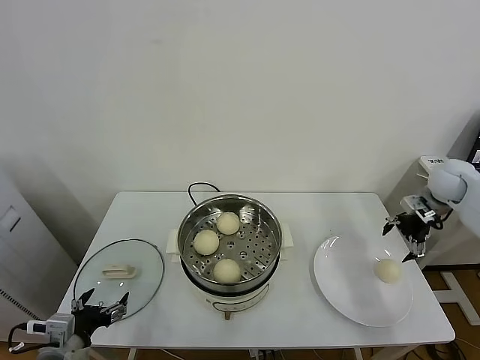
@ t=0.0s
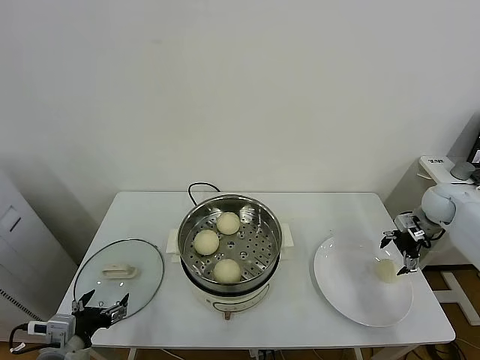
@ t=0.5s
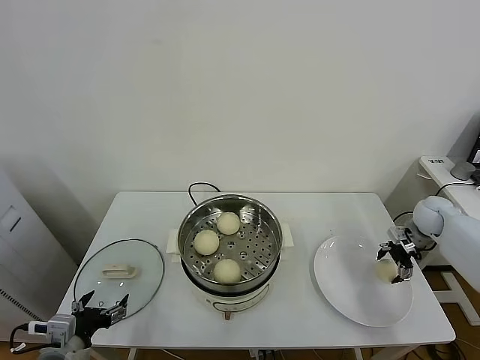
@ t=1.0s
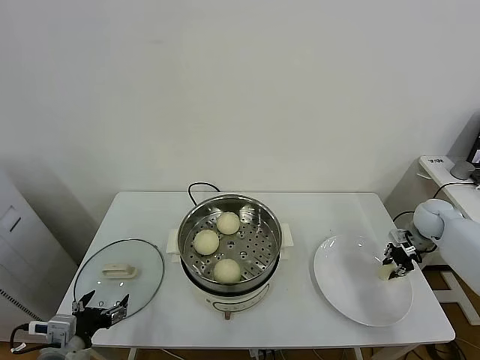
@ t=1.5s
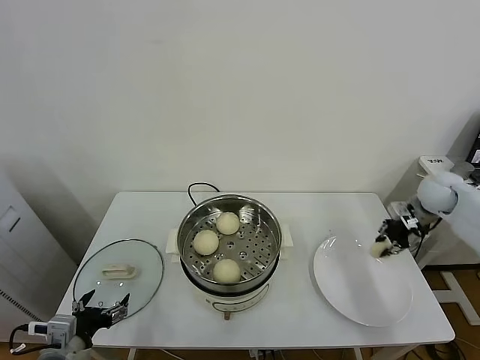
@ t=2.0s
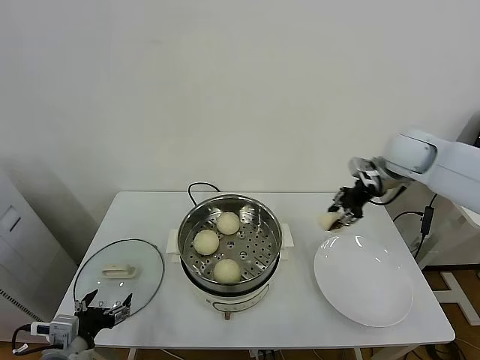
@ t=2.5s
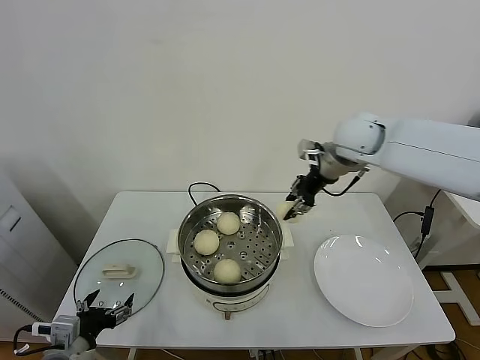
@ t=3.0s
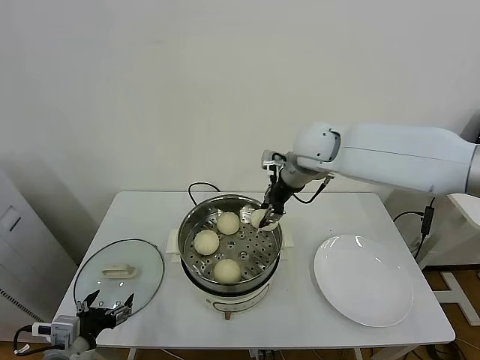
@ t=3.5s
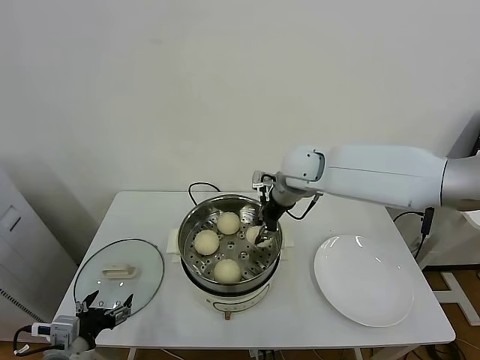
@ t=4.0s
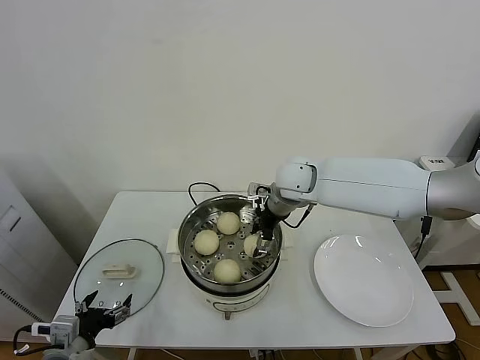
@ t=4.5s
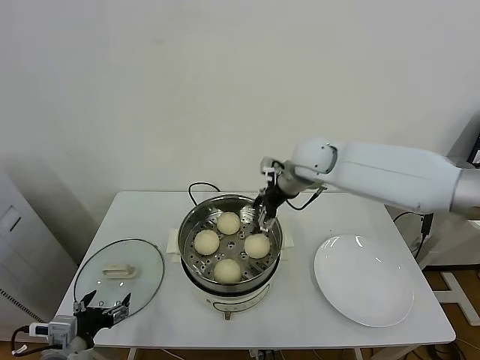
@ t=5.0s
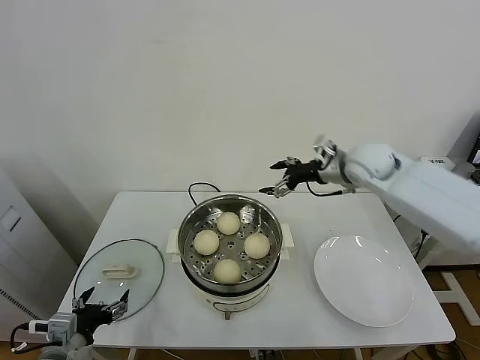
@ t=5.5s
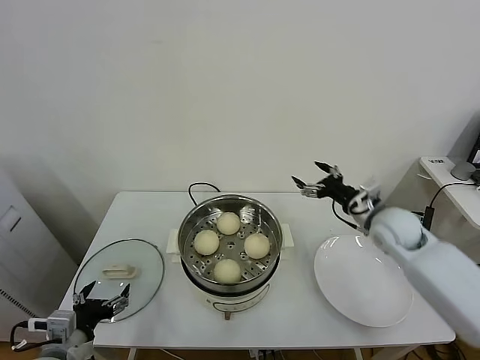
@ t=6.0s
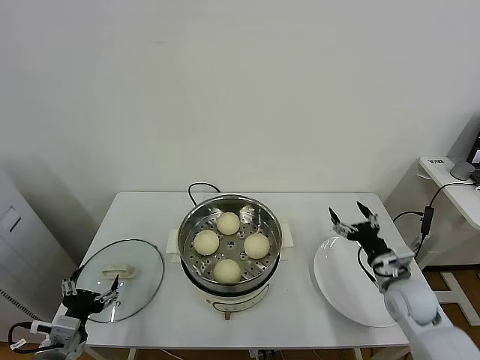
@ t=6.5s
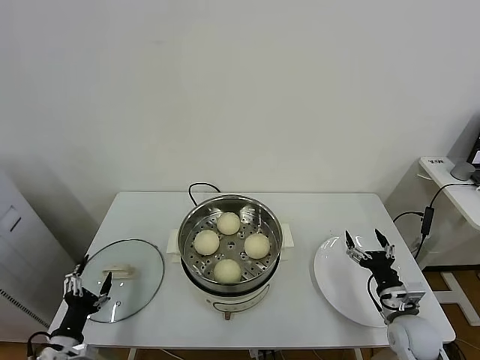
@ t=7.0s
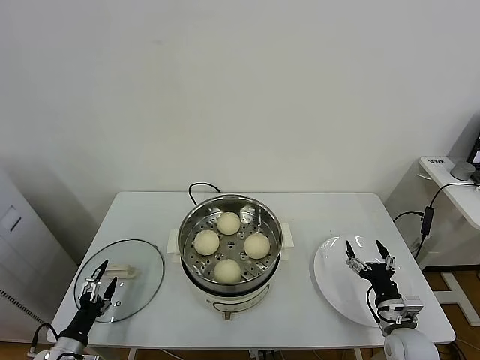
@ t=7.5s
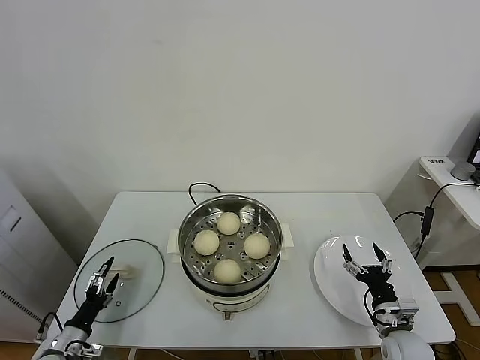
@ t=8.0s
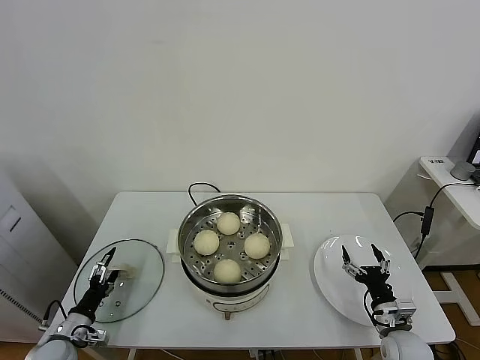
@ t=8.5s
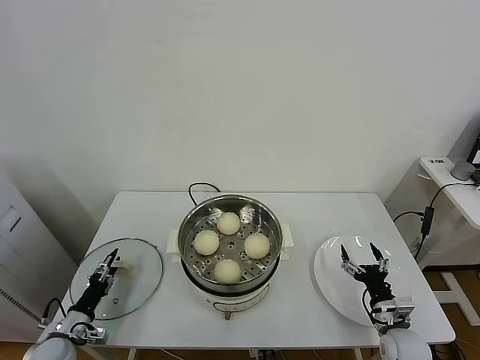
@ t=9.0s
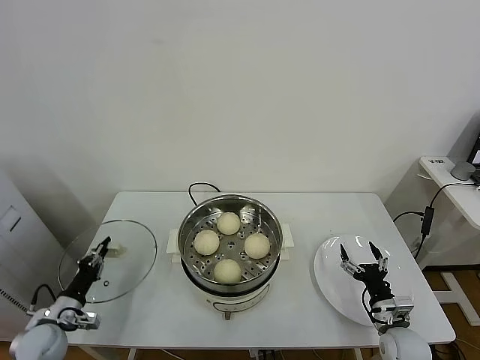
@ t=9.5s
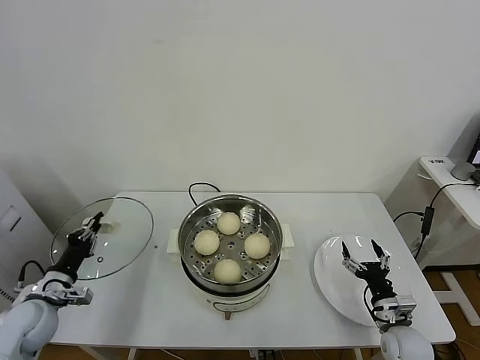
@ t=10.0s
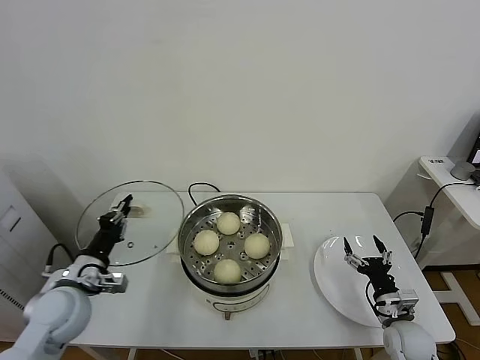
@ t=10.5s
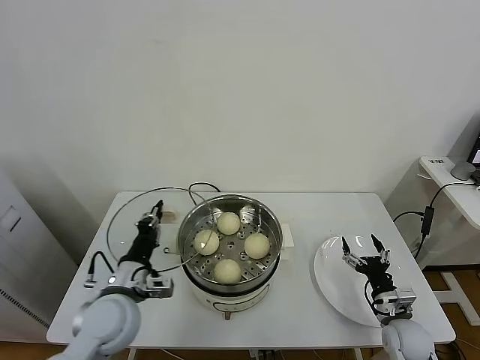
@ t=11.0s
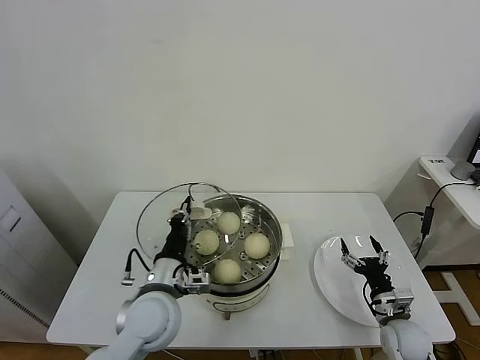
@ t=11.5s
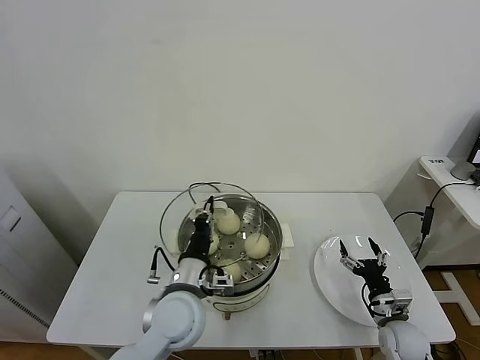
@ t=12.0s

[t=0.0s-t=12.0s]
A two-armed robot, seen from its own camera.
Task of the whole recording: take steamed baozi put them in steamer.
Step, t=1.5s to t=4.5s: Place the baozi on the steamer with right gripper.
Step, t=5.0s to t=9.5s: Grasp the pot lid with left gripper.
t=0.0s to t=2.0s: The right gripper reaches some 10 cm downward, then returns, and closes up.
t=2.0s to t=4.0s: The right gripper heads to the left, covering approximately 35 cm.
t=4.0s to t=6.0s: The right gripper goes about 25 cm to the right, downward and backward, and opens up.
t=6.0s to t=8.0s: The right gripper shifts about 30 cm downward and backward; the left gripper shifts approximately 20 cm downward and to the left.
t=8.0s to t=10.0s: The left gripper moves upward and forward, about 15 cm, and closes.
t=10.0s to t=12.0s: The left gripper travels to the right by some 30 cm.

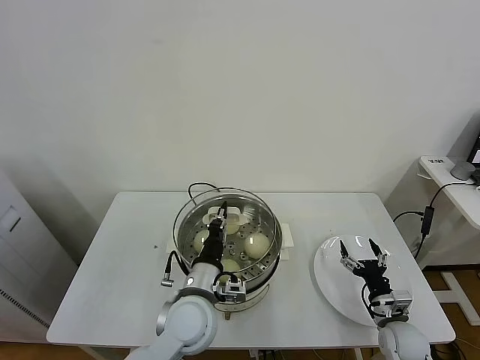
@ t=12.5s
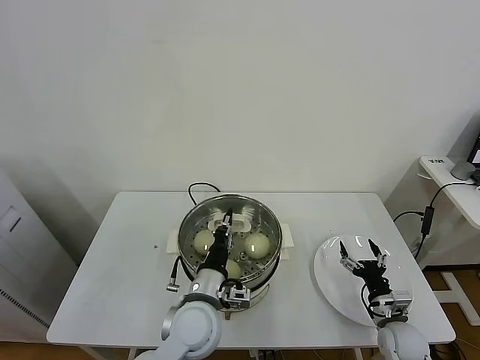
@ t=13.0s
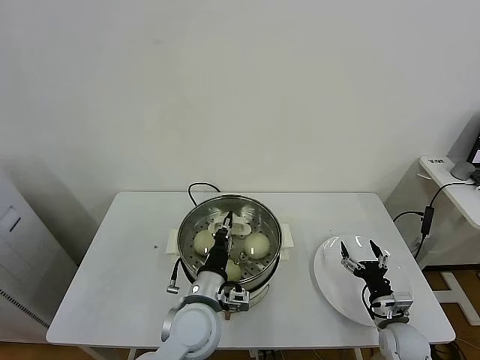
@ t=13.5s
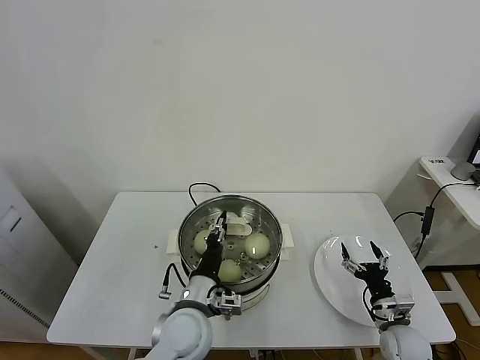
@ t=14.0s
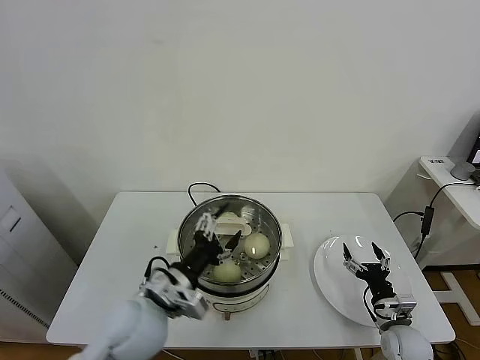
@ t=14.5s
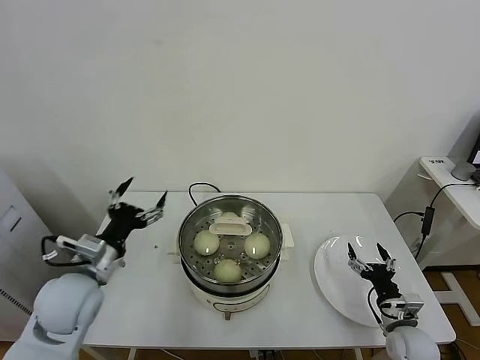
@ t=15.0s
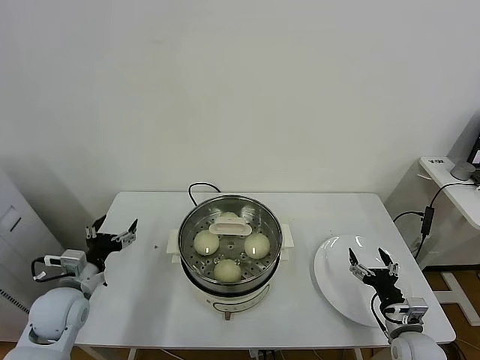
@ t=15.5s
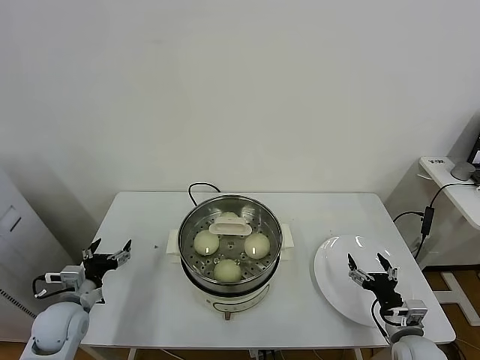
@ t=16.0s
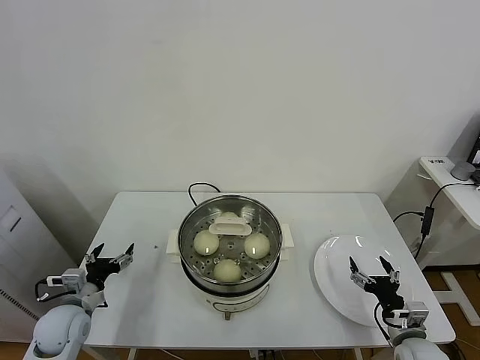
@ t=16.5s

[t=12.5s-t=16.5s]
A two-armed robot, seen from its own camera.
Task of the whole recording: take steamed baozi put them in steamer.
Step, t=12.5s to t=14.5s: Place the pot lid on the steamer with left gripper.
t=12.5s to t=14.5s: The left gripper shifts roughly 5 cm to the left, and opens its fingers.
t=14.5s to t=16.5s: The left gripper travels to the left and downward by some 25 cm, while the right gripper ends up roughly 5 cm from where it was.

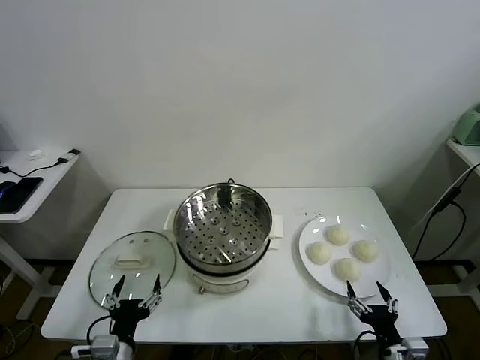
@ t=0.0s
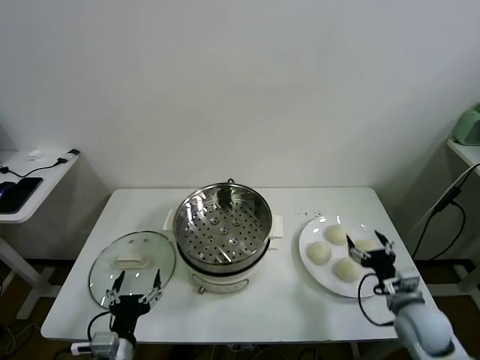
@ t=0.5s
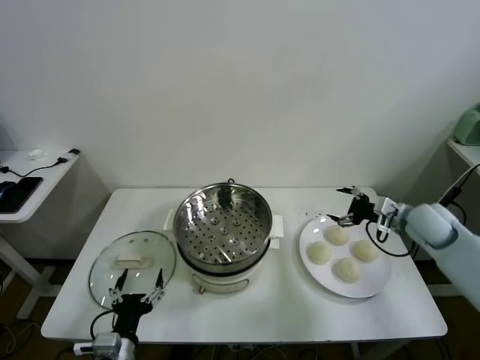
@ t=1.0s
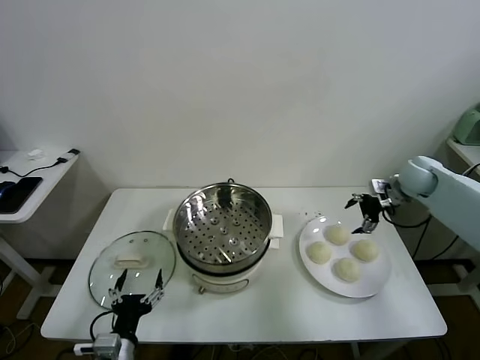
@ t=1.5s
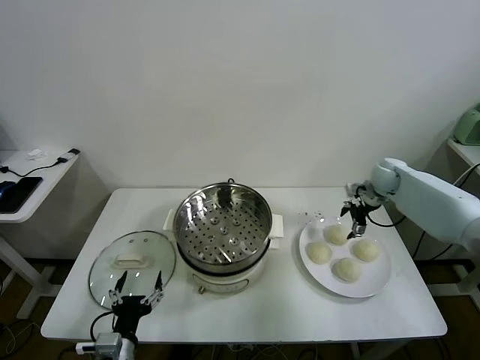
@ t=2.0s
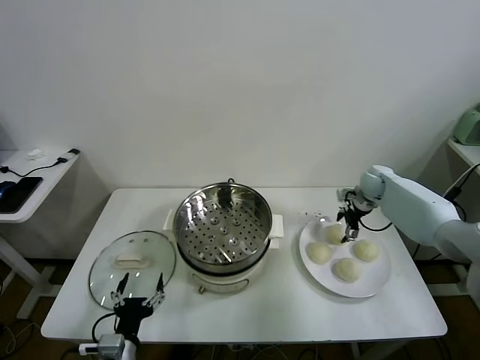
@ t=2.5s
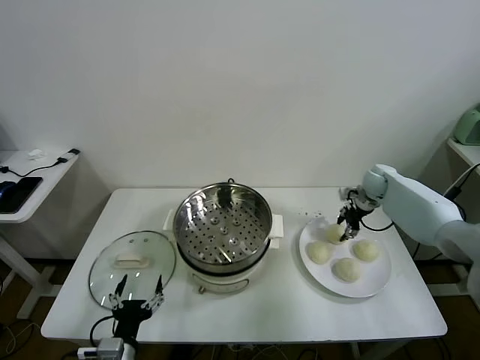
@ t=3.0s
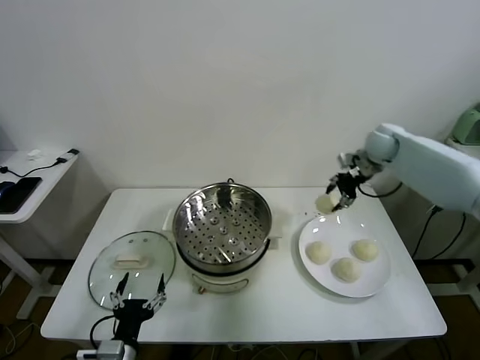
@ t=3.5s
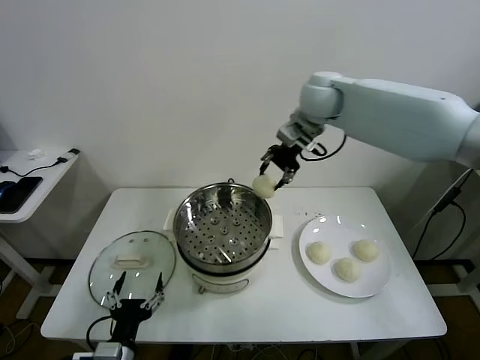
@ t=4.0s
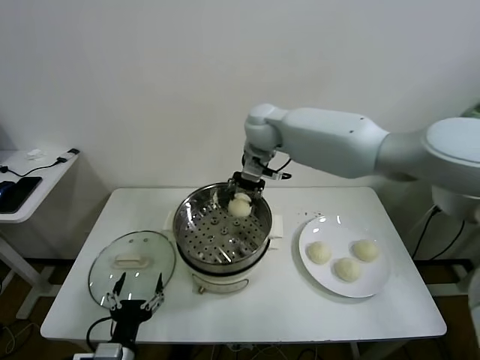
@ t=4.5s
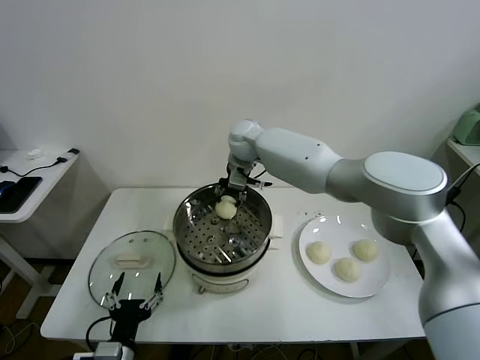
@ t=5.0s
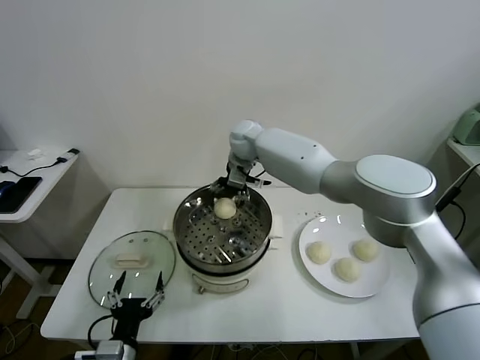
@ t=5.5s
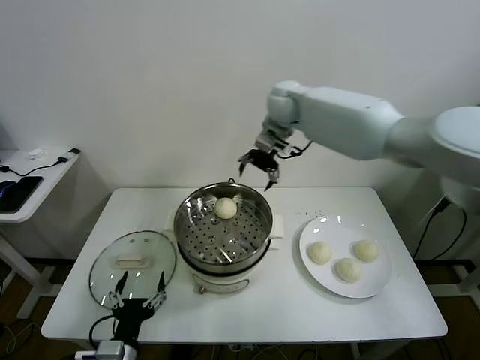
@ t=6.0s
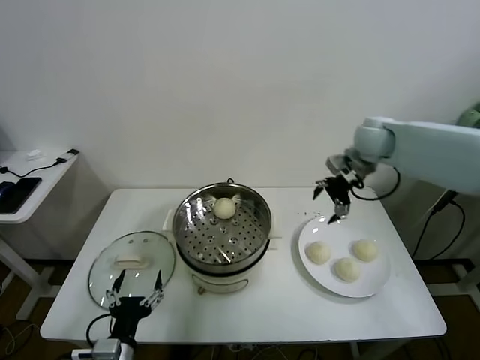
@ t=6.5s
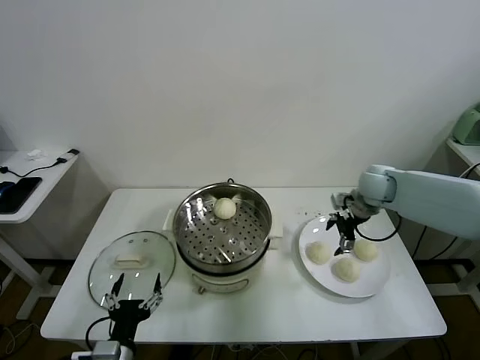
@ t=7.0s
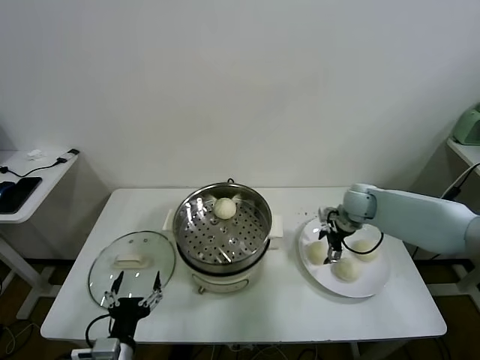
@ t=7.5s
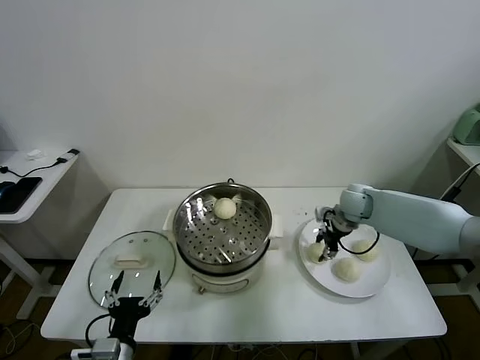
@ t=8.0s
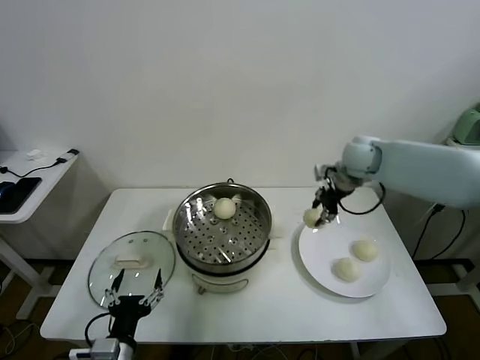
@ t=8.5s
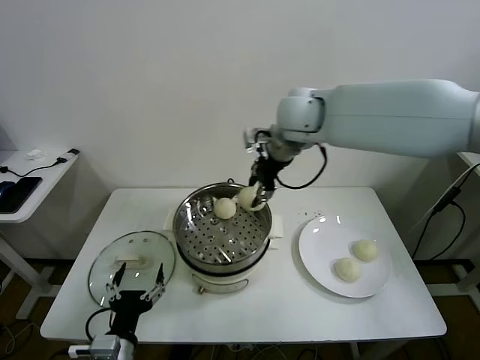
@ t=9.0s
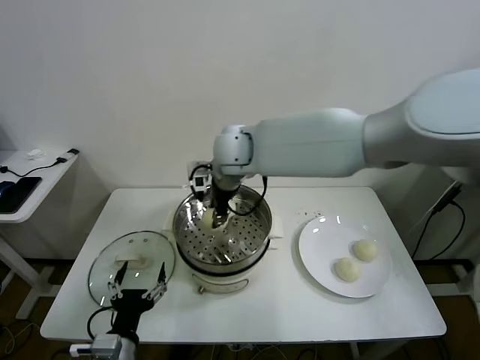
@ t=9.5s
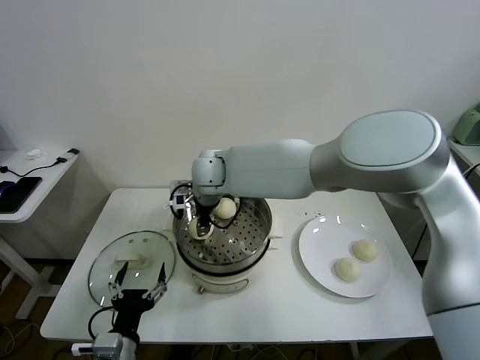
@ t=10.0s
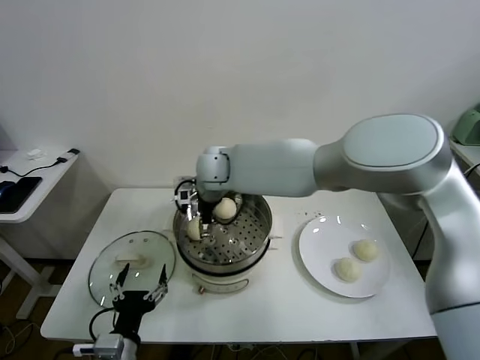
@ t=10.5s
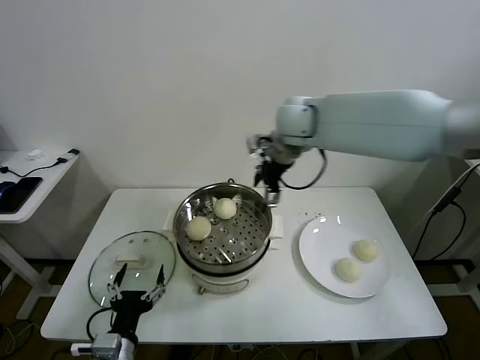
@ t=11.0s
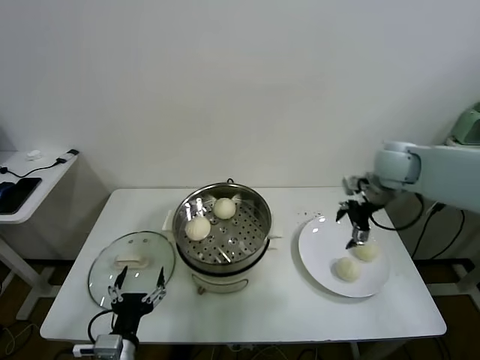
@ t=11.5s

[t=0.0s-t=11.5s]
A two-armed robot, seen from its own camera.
Task of the whole recording: take steamed baozi put them in steamer.
Step, t=0.0s to t=2.5s: Grasp the baozi in the plate with right gripper.
Step, t=3.0s to t=5.0s: Place the baozi on the steamer with right gripper.
Step, t=6.0s to t=7.5s: Grasp the baozi in the plate with right gripper.
Step, t=8.0s to t=10.0s: Place the baozi on the steamer with right gripper.
t=2.0s to t=4.0s: The right gripper moves to the left and upward, roughly 35 cm, and closes its fingers.
t=4.0s to t=6.0s: The right gripper travels to the left and back again, about 10 cm each way, and opens up.
t=6.0s to t=7.5s: The right gripper travels downward and to the right by approximately 30 cm.
t=7.5s to t=9.5s: The right gripper travels to the left and upward by roughly 40 cm, and closes its fingers.
t=9.5s to t=11.5s: The right gripper moves to the right, some 35 cm, and opens up.
